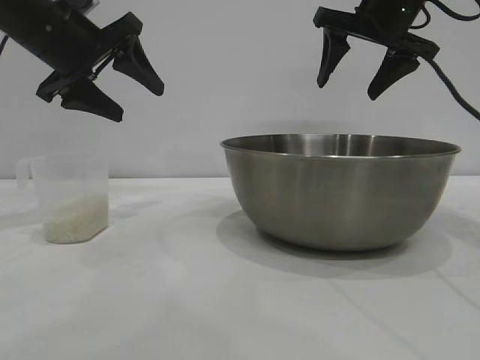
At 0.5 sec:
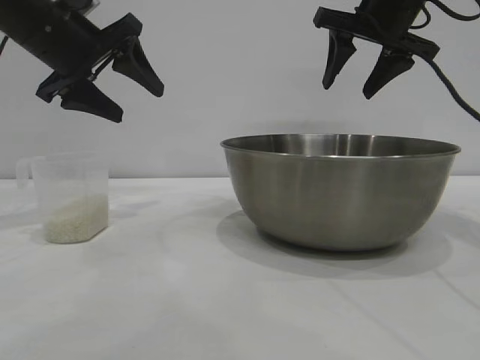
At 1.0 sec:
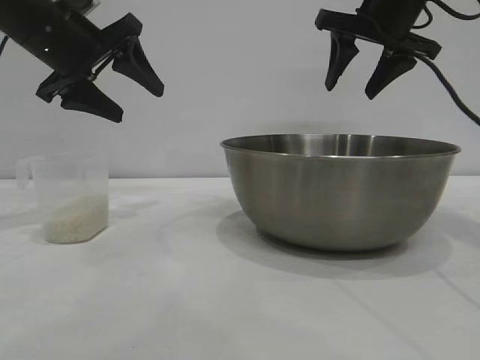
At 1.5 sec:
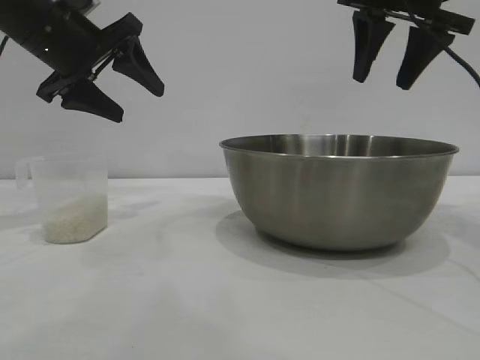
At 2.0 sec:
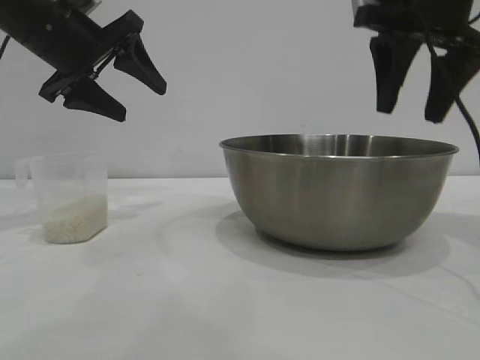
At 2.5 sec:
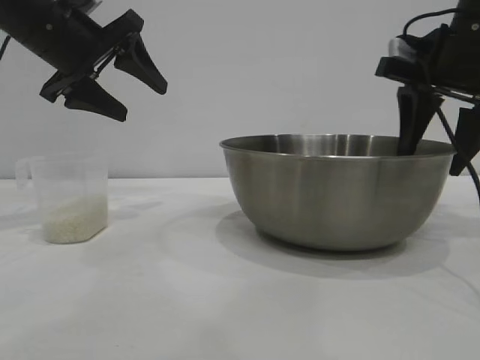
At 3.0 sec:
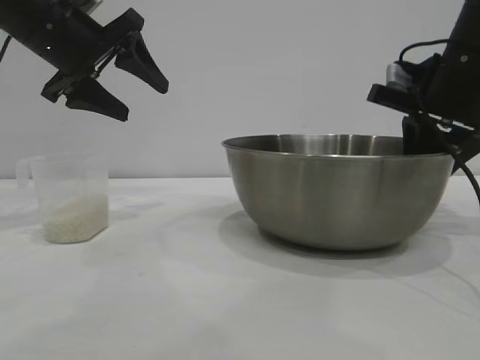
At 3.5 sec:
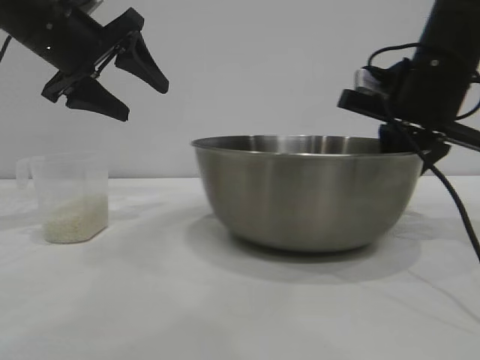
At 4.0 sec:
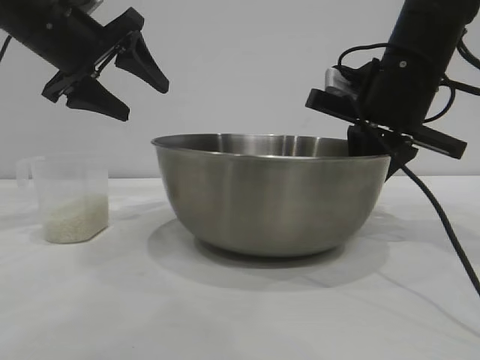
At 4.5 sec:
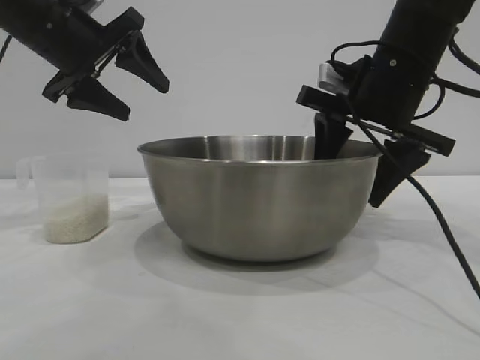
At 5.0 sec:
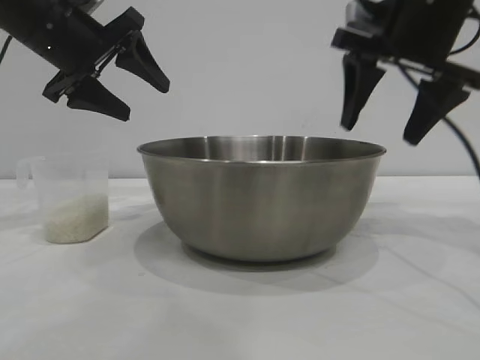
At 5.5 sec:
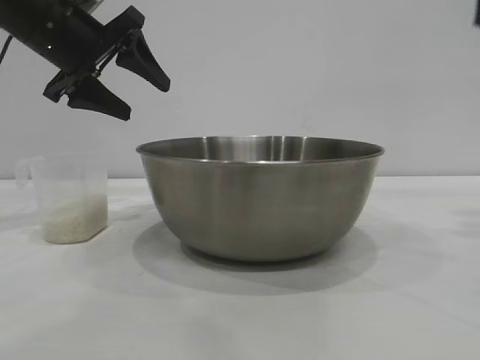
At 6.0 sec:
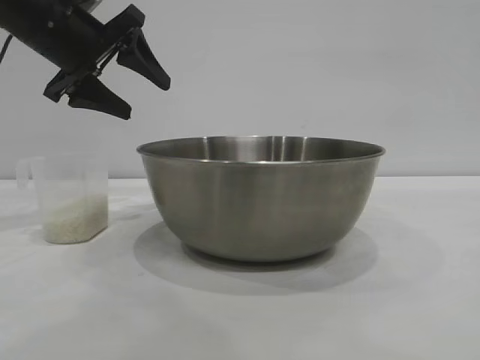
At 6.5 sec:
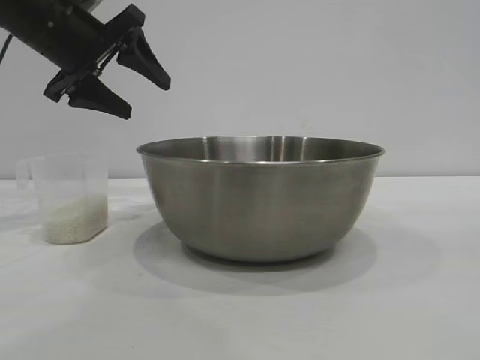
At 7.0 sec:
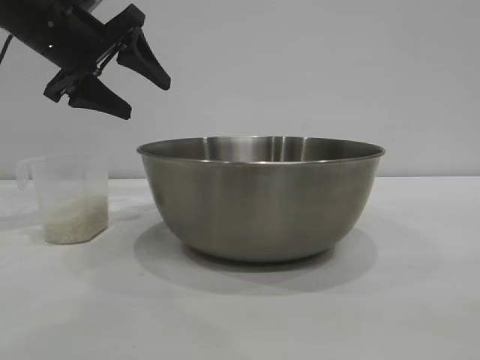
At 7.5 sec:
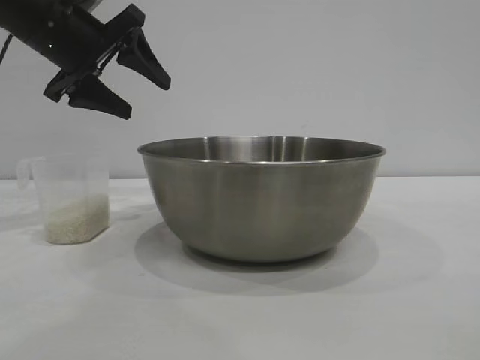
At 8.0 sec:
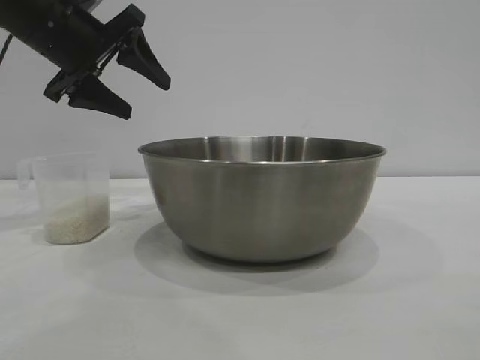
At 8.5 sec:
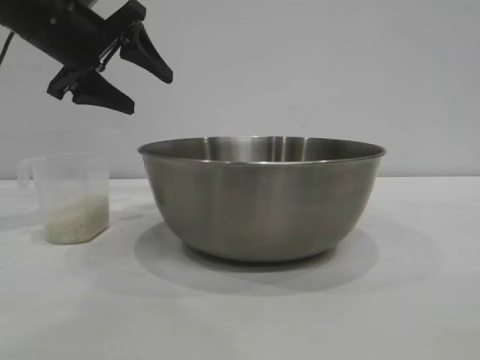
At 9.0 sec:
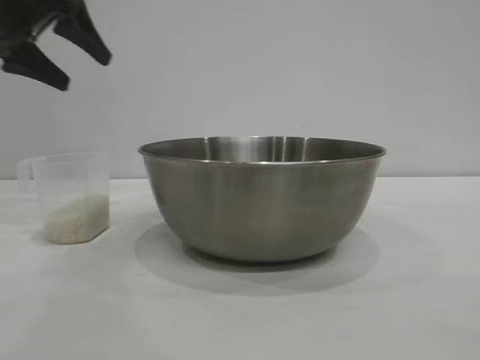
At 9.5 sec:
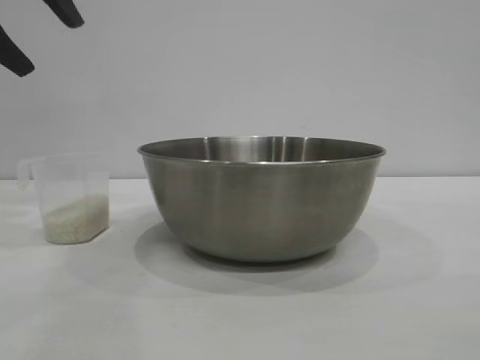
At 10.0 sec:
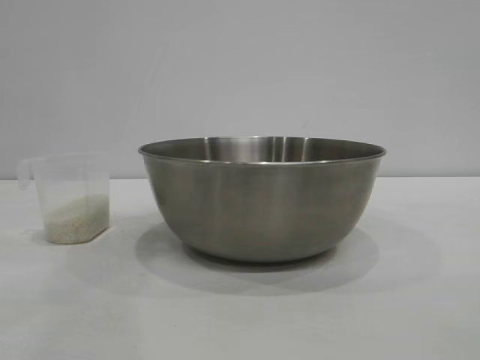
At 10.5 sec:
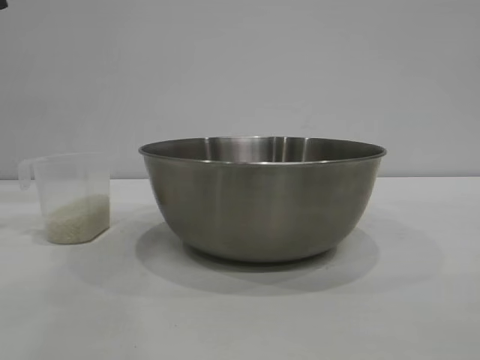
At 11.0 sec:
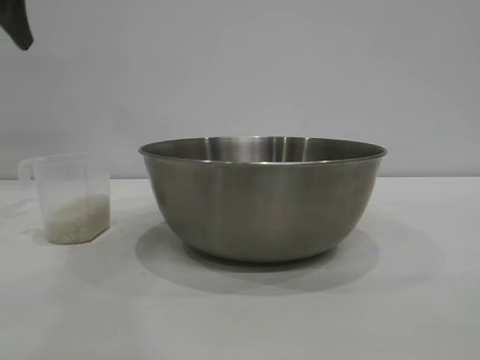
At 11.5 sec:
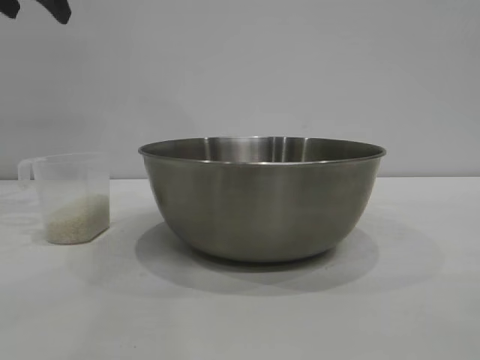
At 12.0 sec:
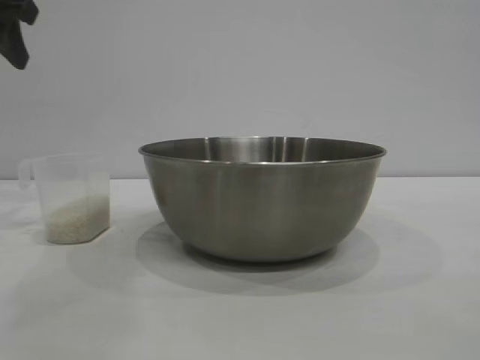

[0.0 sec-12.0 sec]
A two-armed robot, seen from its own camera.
Task of the whole recording: the right gripper grasp the rice container and place it in the center of the table, the left gripper grasp the rice scoop and pour the rice into the rice container.
Step, 0.0 sec to 5.0 sec: Move the bowl to the center of view with the right gripper.

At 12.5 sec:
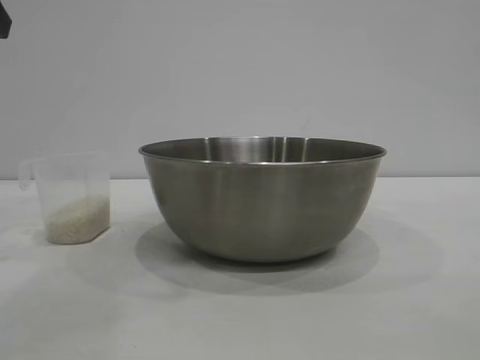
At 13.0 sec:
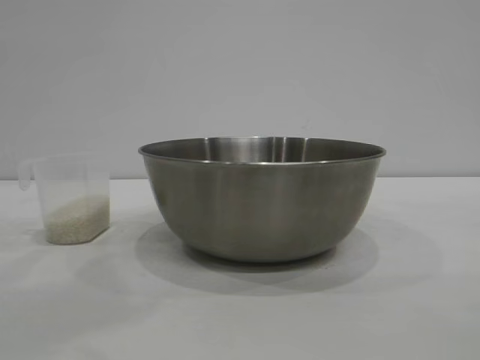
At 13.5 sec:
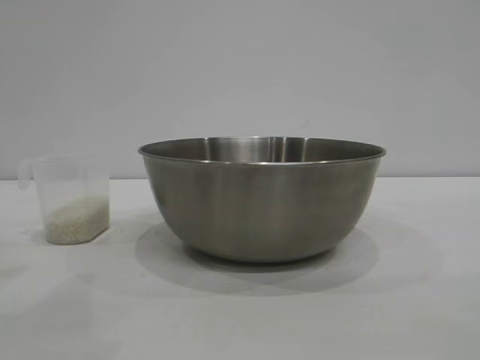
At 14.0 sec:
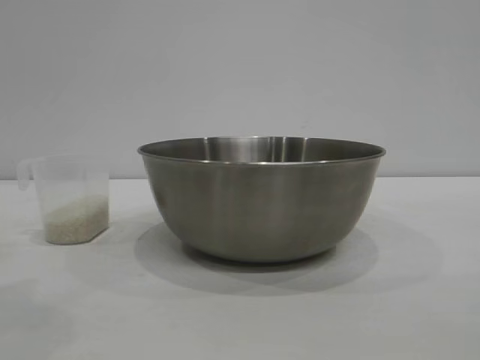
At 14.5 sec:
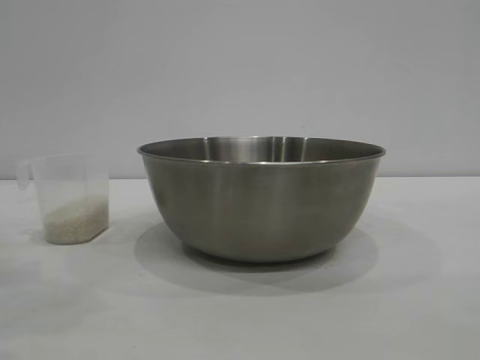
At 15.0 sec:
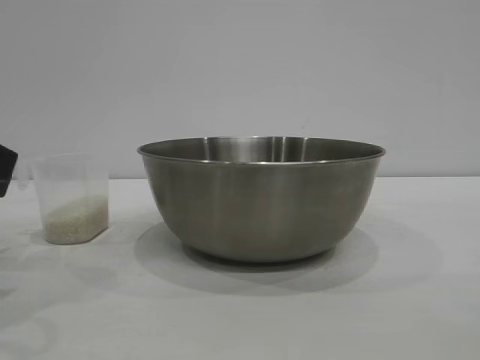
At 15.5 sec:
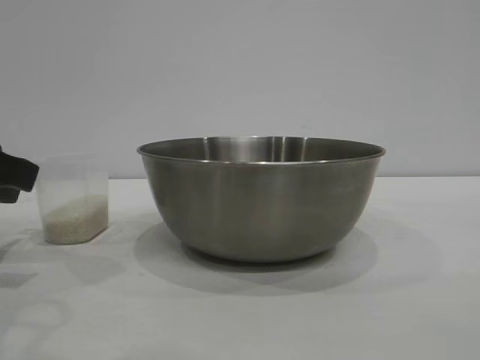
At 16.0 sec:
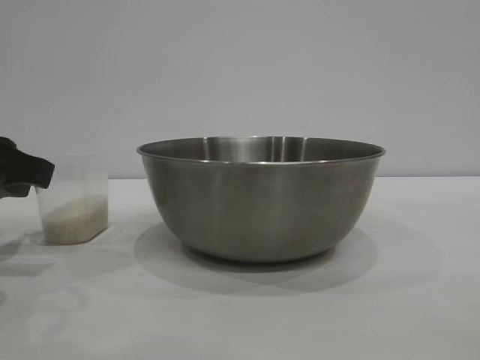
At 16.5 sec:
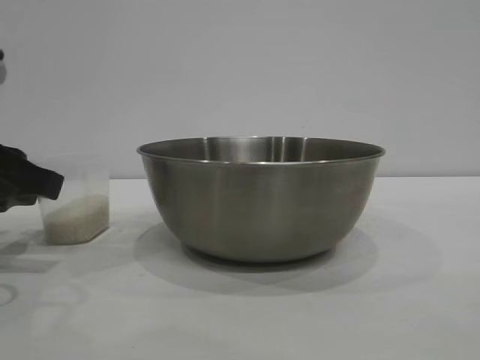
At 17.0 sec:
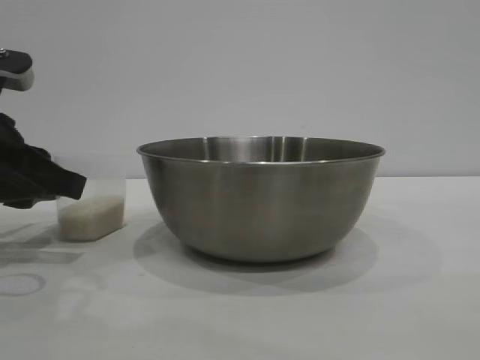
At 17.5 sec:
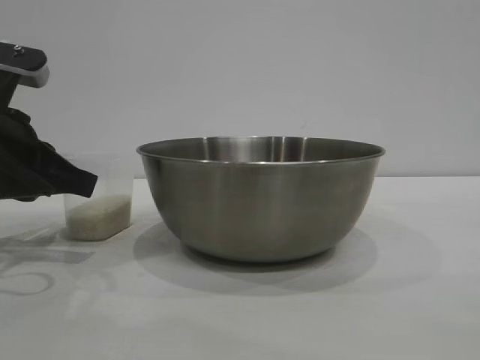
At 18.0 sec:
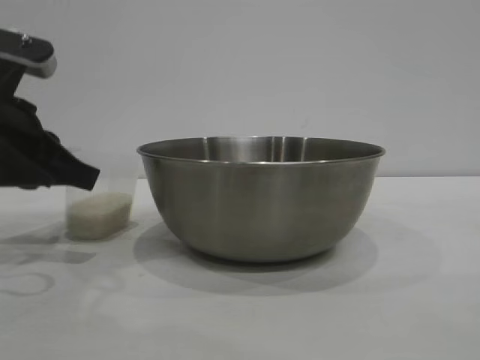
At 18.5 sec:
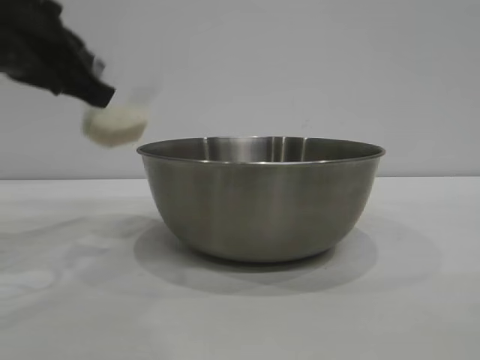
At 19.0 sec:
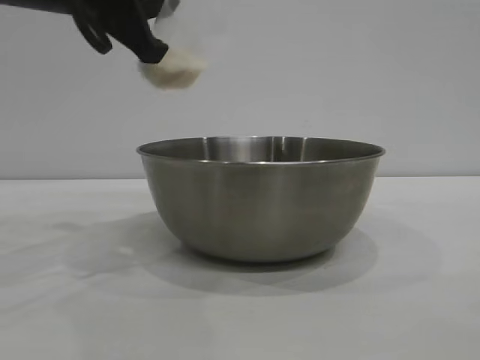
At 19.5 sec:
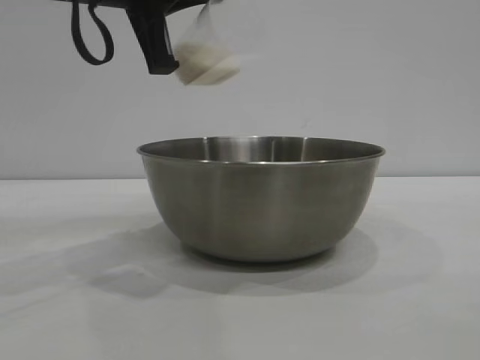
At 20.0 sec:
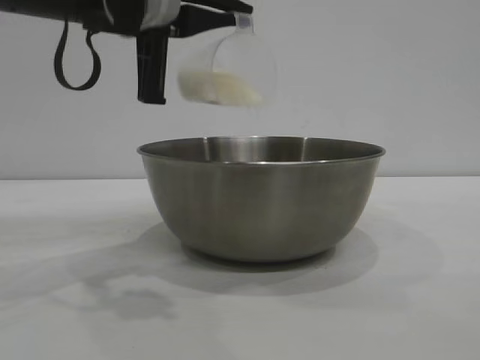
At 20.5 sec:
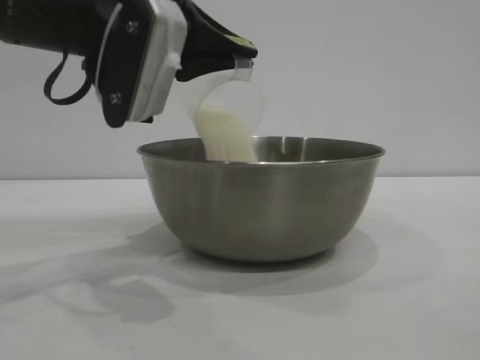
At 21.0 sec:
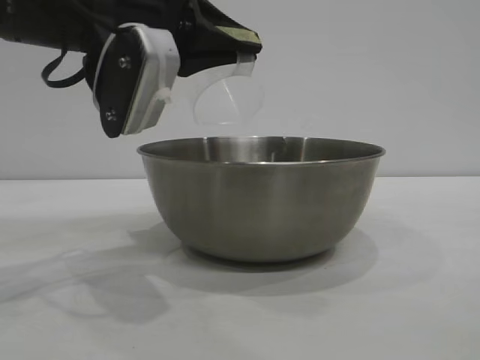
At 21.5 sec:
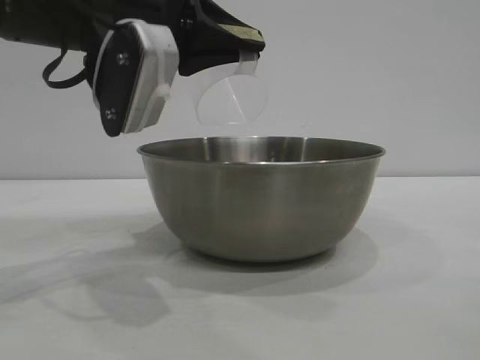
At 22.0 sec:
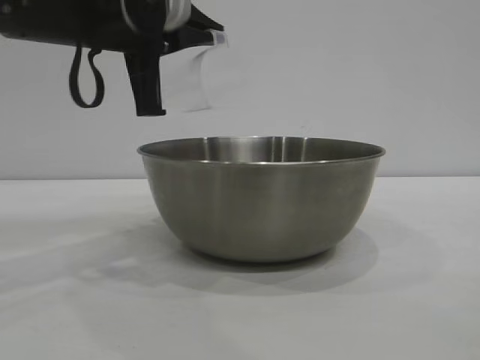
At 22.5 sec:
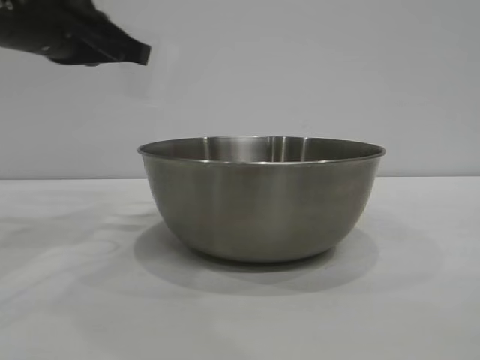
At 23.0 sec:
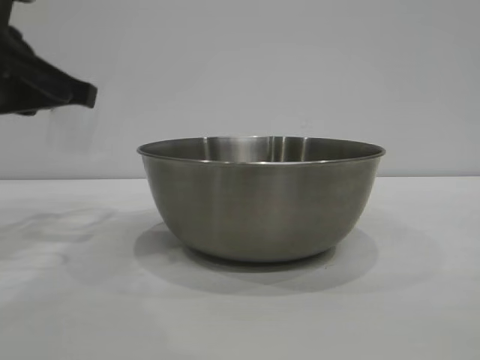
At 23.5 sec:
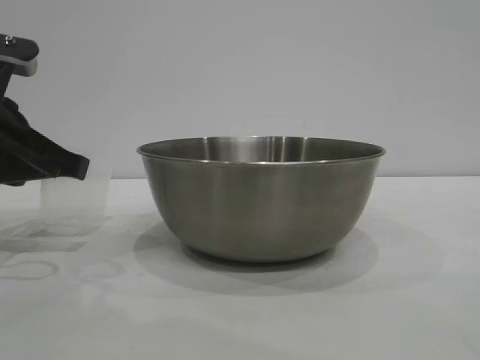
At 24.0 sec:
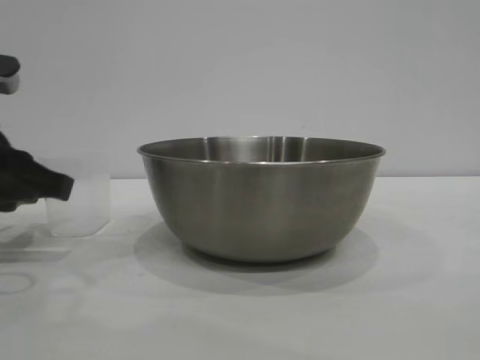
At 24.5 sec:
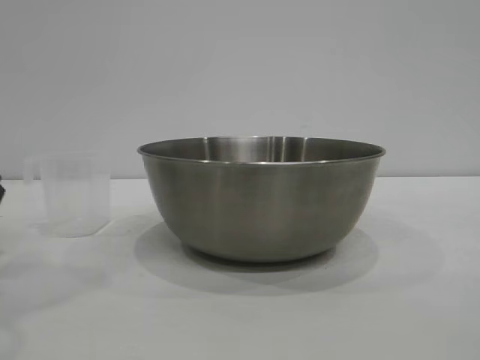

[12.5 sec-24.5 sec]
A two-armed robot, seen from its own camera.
Task of the whole recording: the right gripper grasp the rice container and place it in the center of the table, the left gripper grasp the rice scoop and pour the rice into the rice container.
Step, 12.5 sec to 18.0 sec: Pick up the cup with rice in it with the left gripper.
Step, 18.5 sec to 22.0 sec: Pour the rice from the cup into the bowl with the left gripper.
